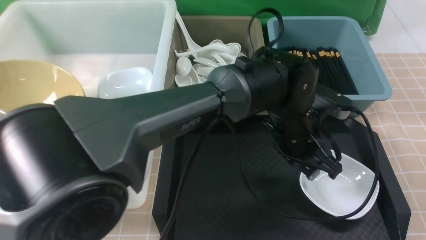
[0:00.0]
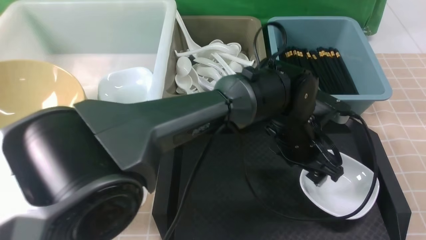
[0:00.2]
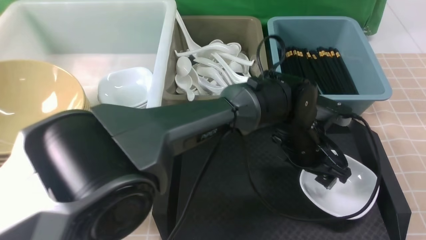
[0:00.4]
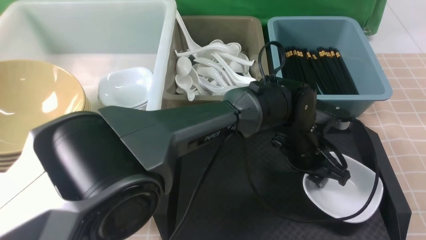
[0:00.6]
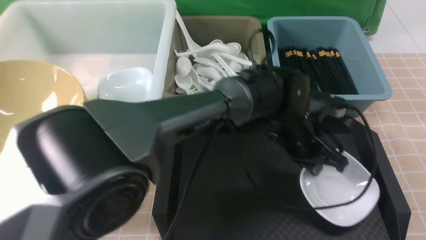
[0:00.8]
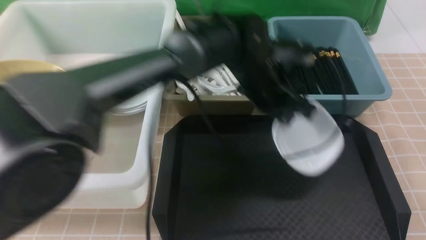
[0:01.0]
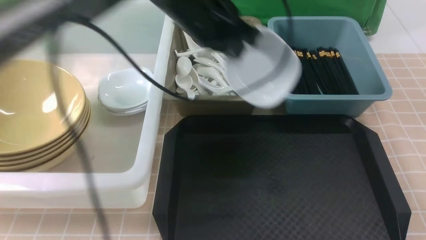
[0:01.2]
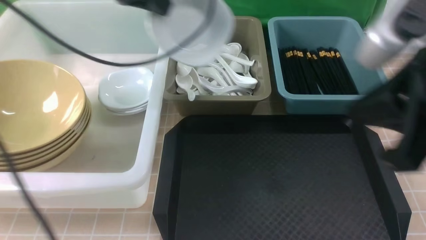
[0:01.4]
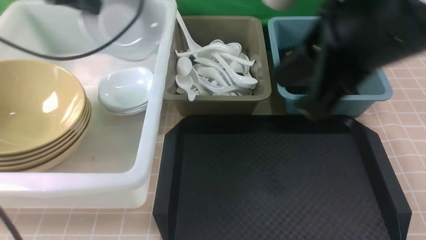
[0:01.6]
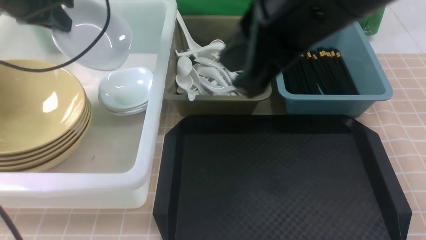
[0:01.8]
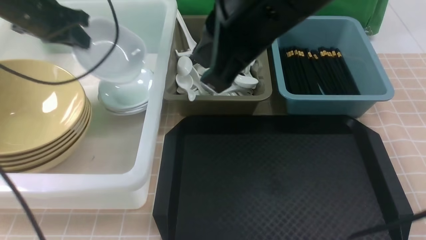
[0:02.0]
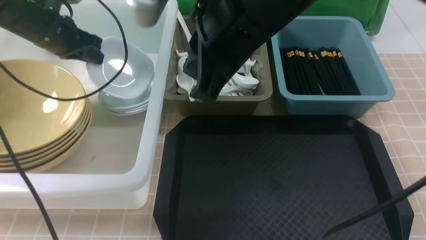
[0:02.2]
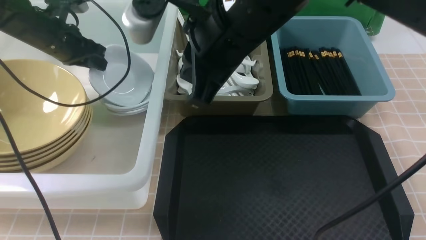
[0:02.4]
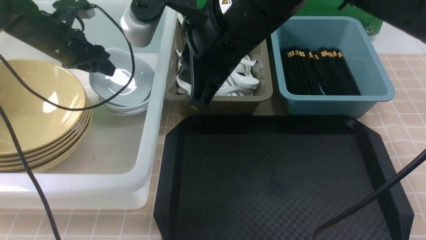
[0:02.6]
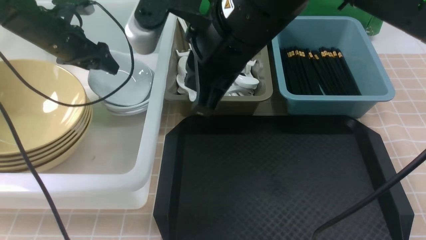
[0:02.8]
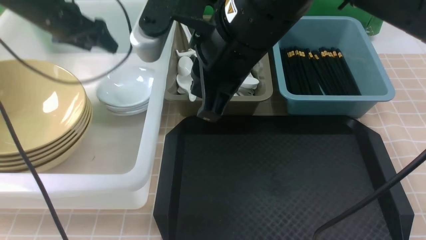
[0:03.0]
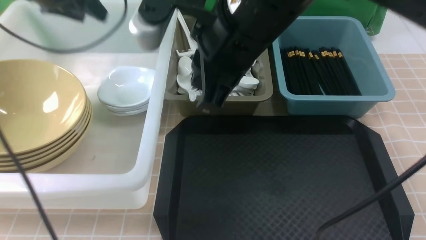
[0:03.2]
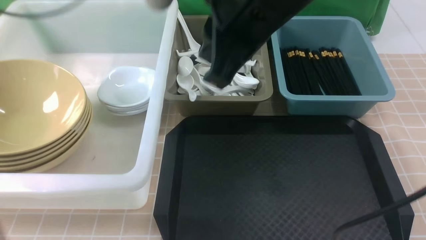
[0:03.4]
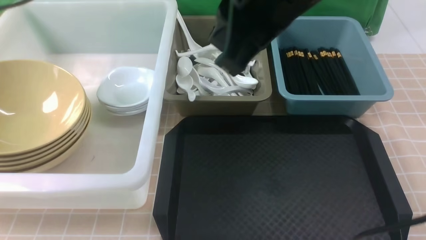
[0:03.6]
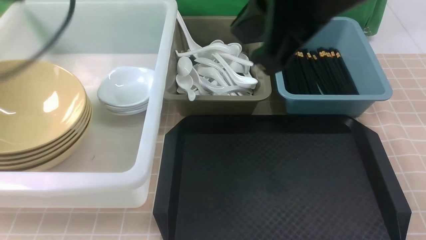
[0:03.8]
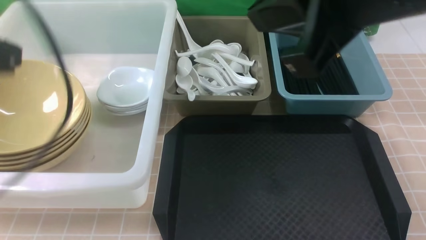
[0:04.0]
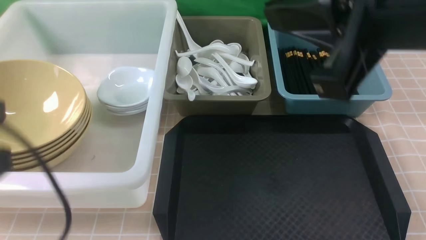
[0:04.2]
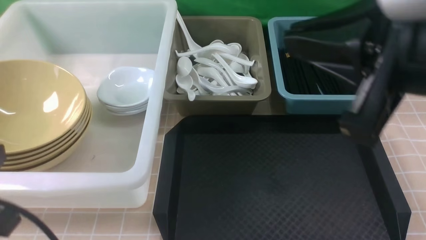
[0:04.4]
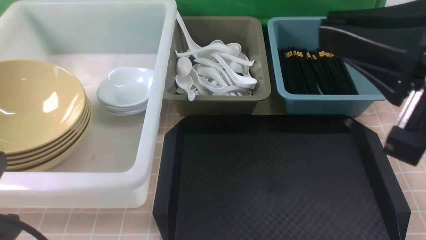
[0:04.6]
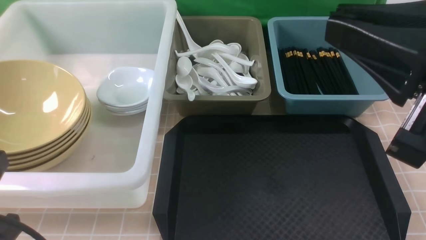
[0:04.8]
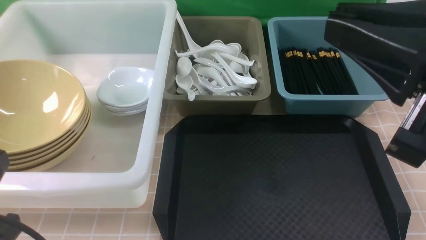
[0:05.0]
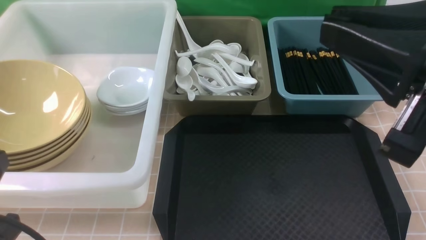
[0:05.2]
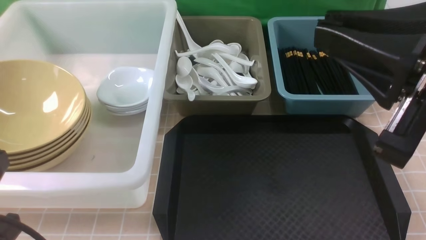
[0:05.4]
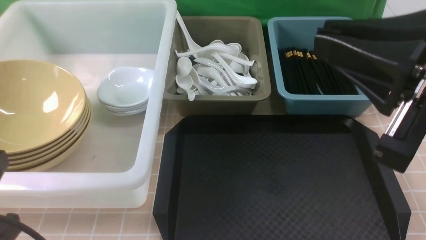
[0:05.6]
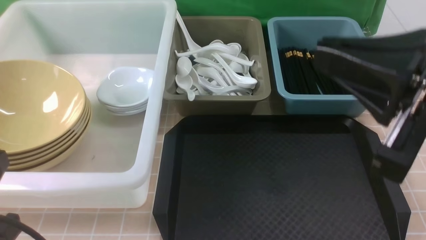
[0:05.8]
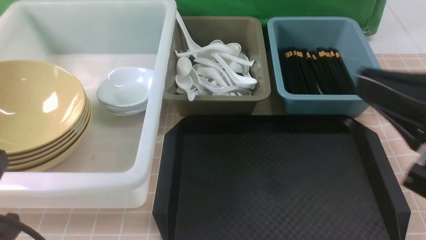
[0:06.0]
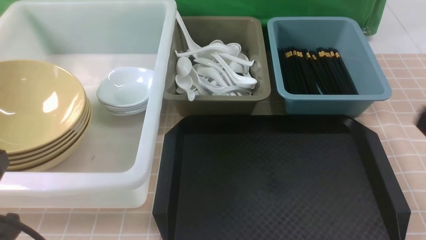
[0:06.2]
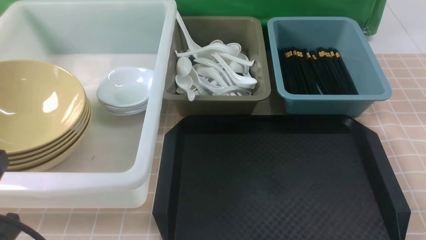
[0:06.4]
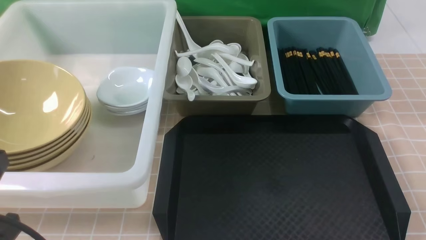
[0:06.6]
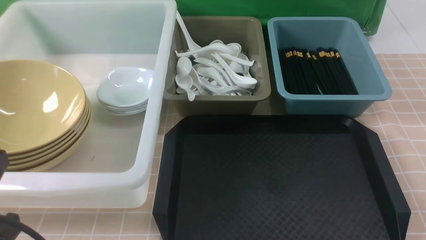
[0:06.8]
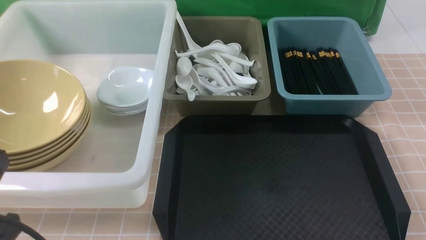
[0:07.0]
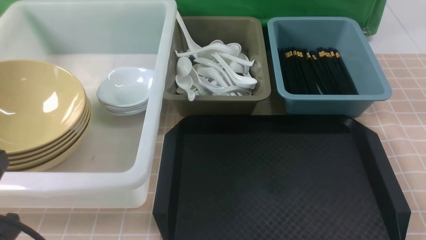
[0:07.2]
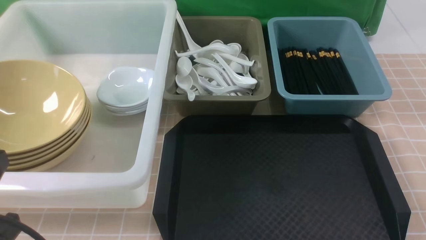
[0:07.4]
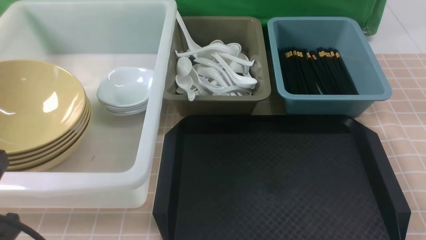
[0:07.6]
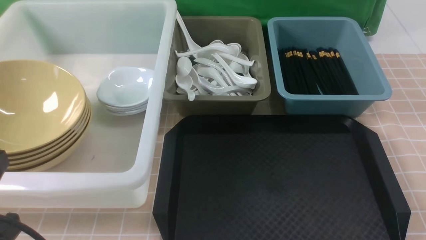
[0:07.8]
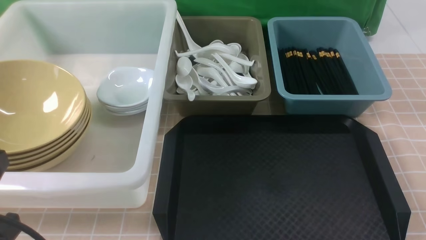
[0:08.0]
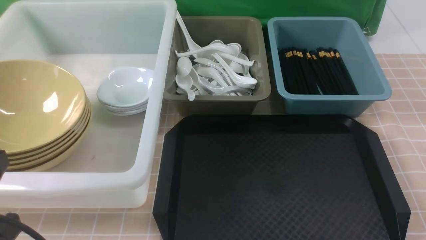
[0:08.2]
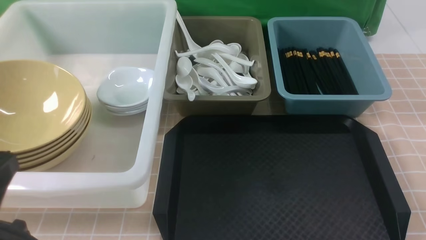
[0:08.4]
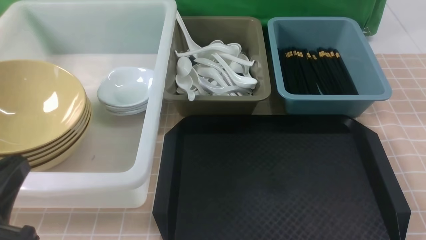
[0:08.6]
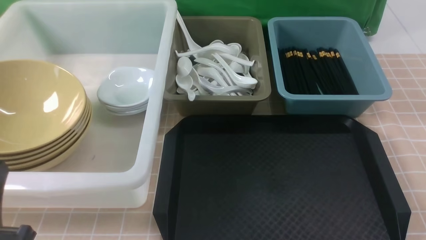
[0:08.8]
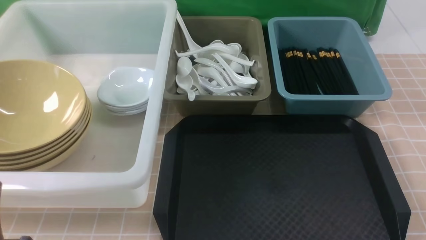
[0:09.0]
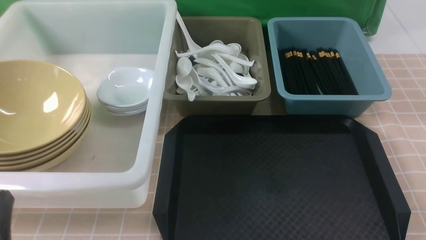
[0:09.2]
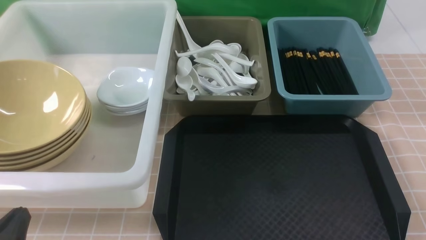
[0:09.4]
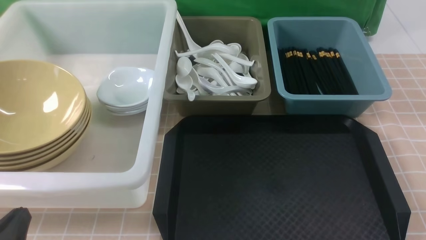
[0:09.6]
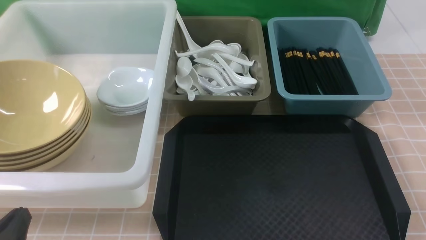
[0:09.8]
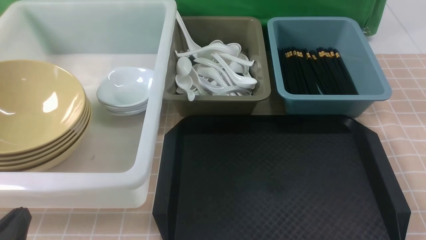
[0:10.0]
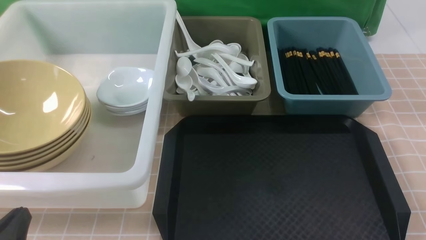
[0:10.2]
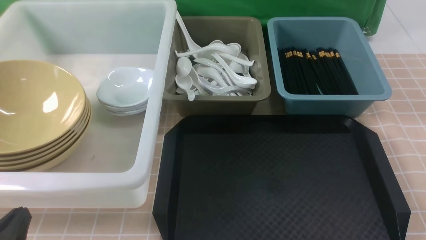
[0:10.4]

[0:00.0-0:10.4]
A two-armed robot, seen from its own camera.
Task of the whole recording: on brown table put chopsticks spoon bowls plates into blue grey white boxes.
Step, 0:01.0 to 0:03.0: use the left arm to put the plate into the large storage box on the left.
0:00.0 to 0:01.4: The right gripper is displaced to the left and forward by some 15 cm, while the left gripper goes some 30 cm to the left and upward, and closes up.
0:01.4 to 0:03.0: The left gripper moves to the left, forward and downward, about 15 cm, and opens its fingers. Meanwhile the right gripper travels to the left and forward by approximately 15 cm.
0:03.0 to 0:04.4: The right gripper moves to the right and backward, some 20 cm. The left gripper moves backward, approximately 40 cm, and closes up.
0:04.4 to 0:06.0: The right gripper moves downward and to the right, about 10 cm.
0:06.0 to 0:07.4: The right gripper moves downward and to the right, approximately 20 cm.
0:07.4 to 0:09.0: The left gripper shifts some 10 cm downward.

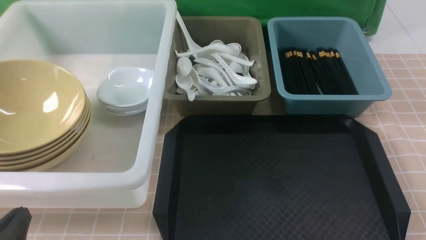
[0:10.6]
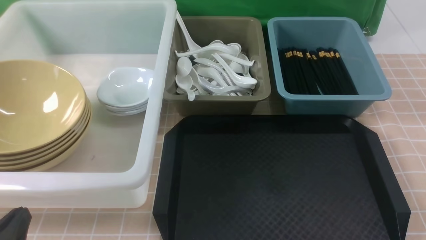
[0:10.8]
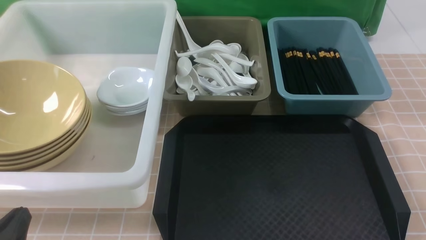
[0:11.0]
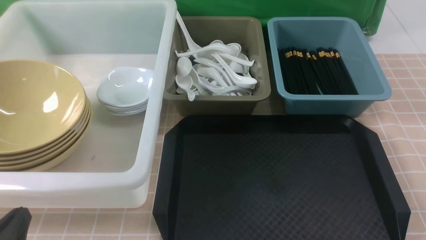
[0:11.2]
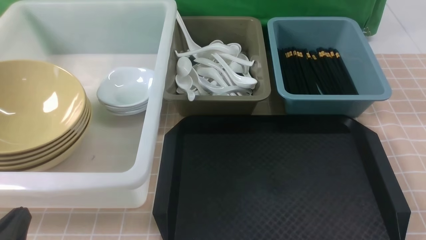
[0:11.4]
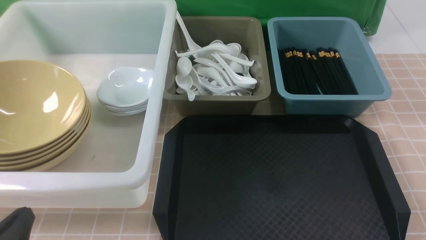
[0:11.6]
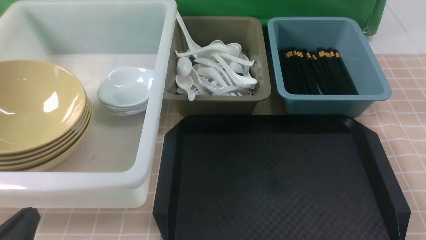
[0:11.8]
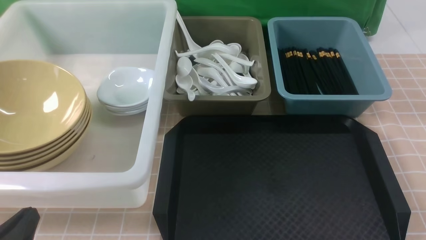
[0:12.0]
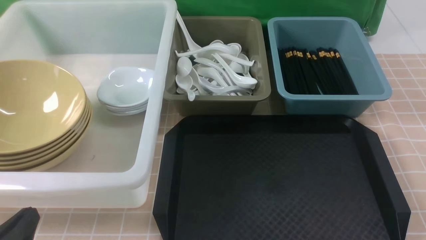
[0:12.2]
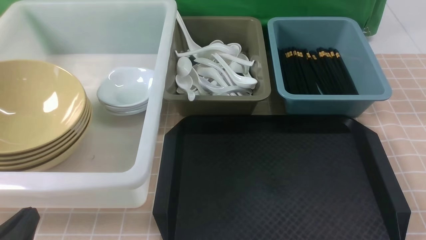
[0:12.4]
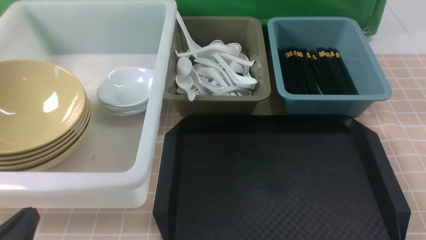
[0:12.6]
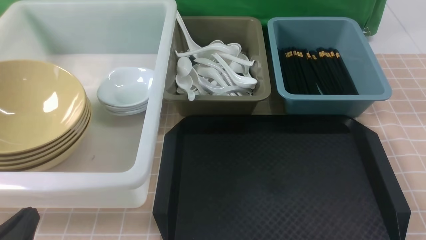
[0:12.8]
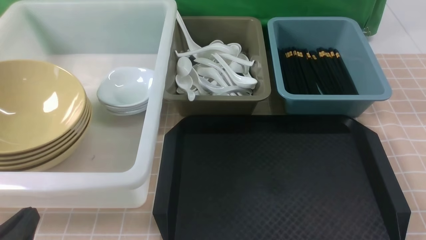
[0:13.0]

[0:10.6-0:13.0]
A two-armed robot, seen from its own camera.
Task of the whole recording: on brown table put chopsticks spoon bowls plates into blue grey white boxes.
0:10.6 to 0:13.0: The two grippers keep their place.
